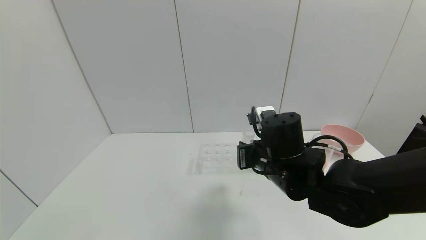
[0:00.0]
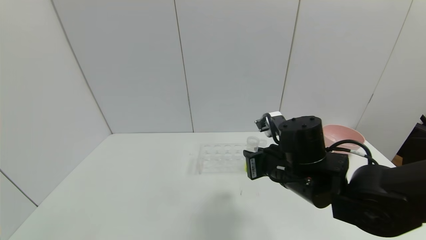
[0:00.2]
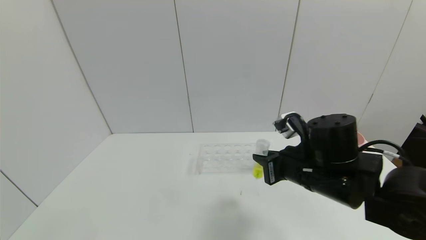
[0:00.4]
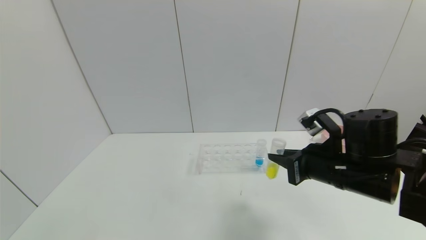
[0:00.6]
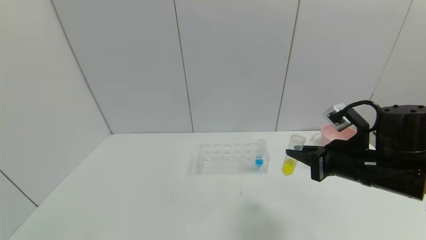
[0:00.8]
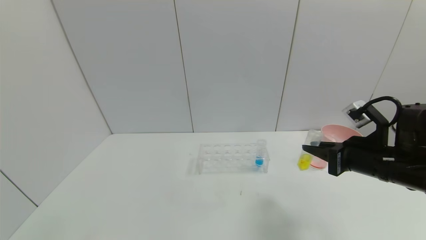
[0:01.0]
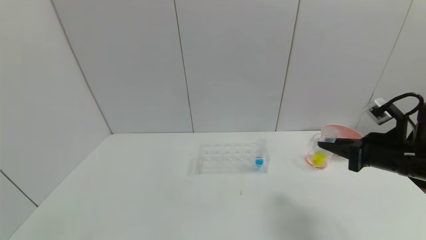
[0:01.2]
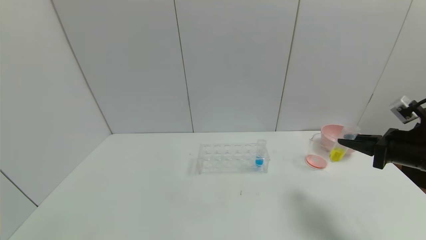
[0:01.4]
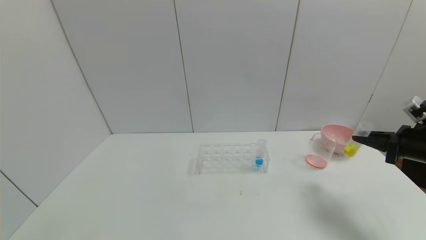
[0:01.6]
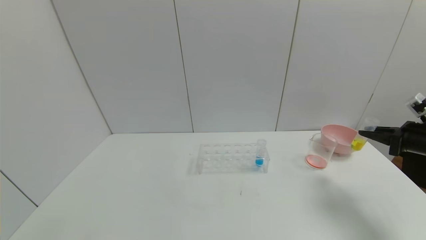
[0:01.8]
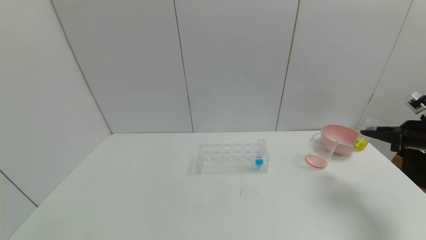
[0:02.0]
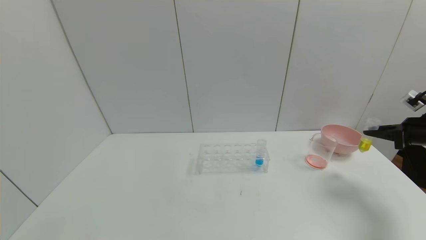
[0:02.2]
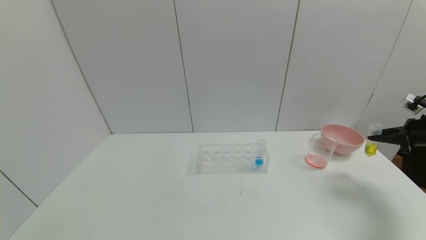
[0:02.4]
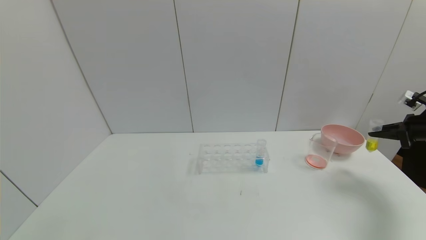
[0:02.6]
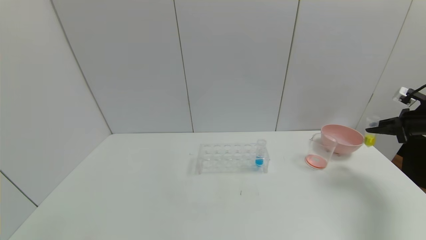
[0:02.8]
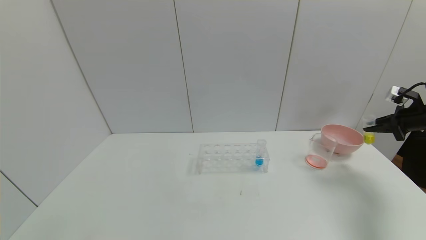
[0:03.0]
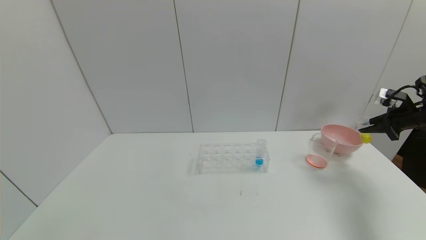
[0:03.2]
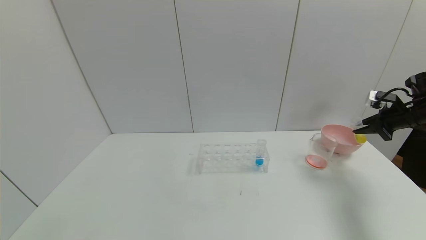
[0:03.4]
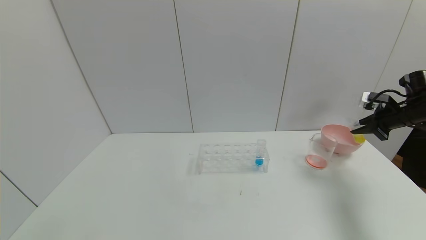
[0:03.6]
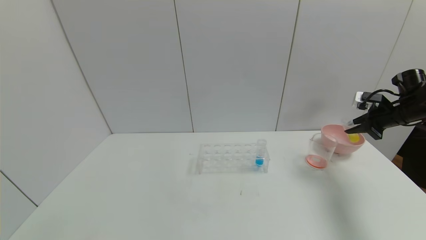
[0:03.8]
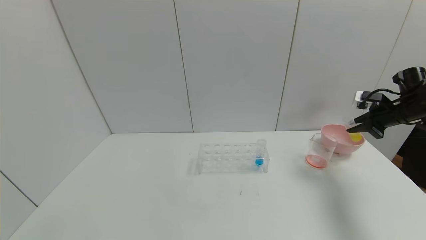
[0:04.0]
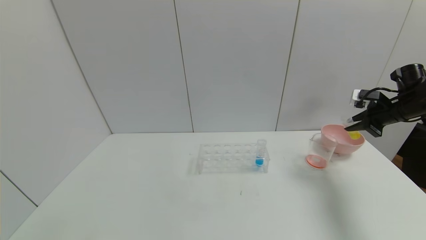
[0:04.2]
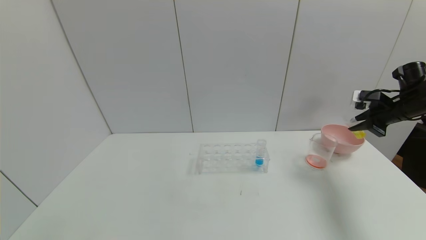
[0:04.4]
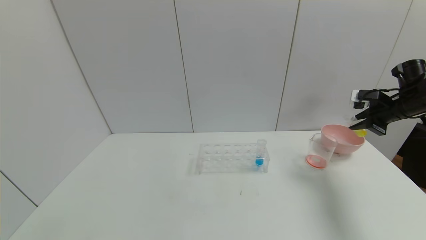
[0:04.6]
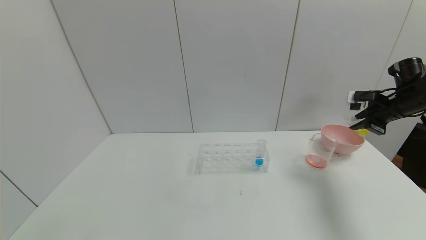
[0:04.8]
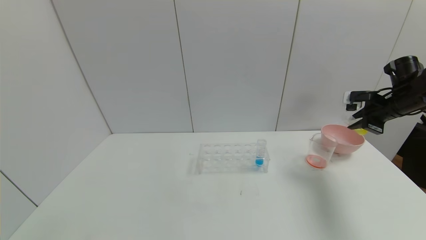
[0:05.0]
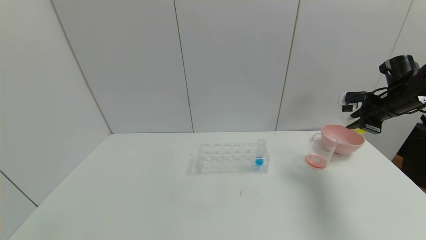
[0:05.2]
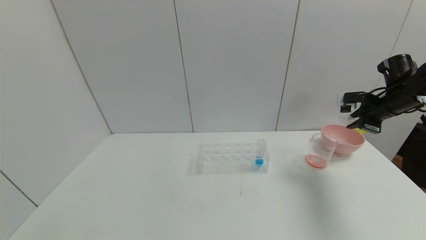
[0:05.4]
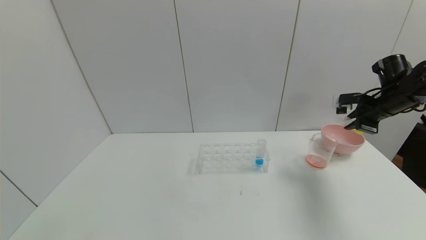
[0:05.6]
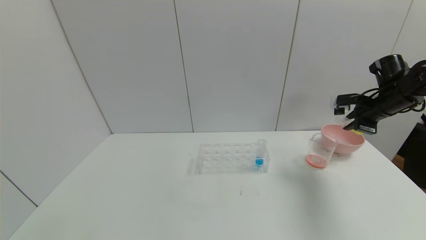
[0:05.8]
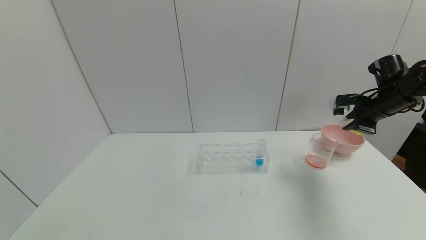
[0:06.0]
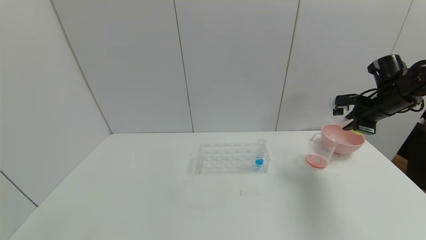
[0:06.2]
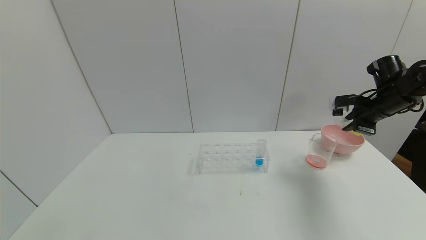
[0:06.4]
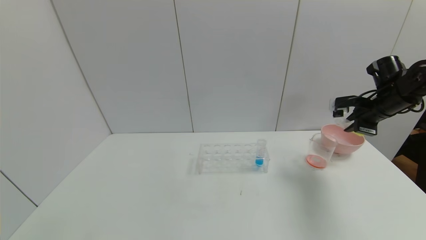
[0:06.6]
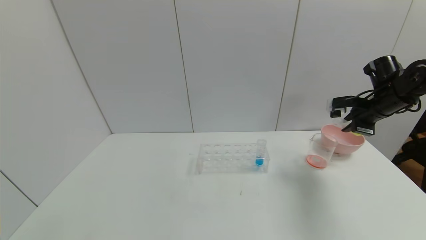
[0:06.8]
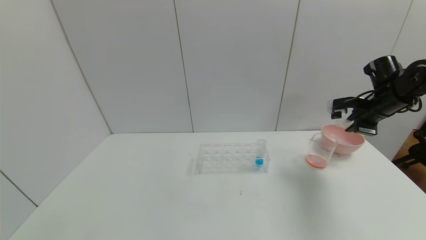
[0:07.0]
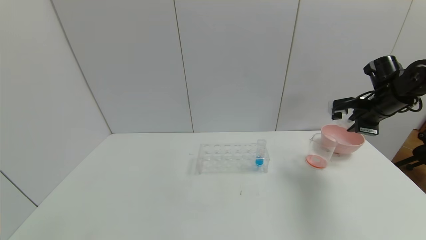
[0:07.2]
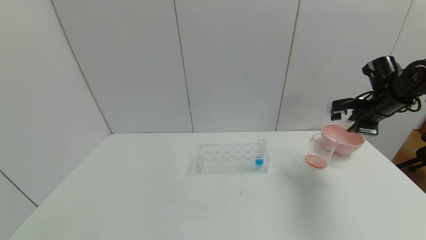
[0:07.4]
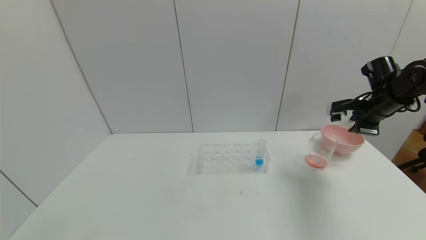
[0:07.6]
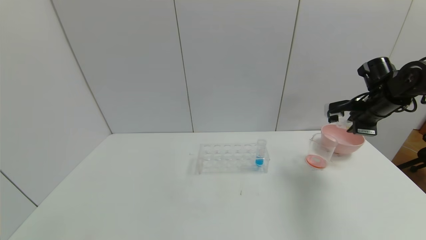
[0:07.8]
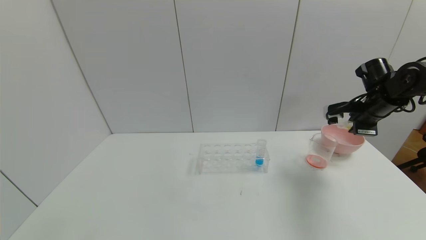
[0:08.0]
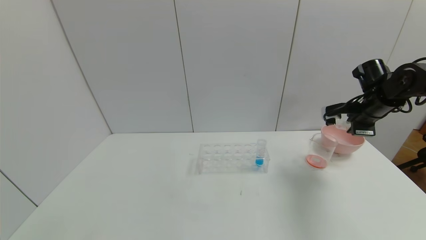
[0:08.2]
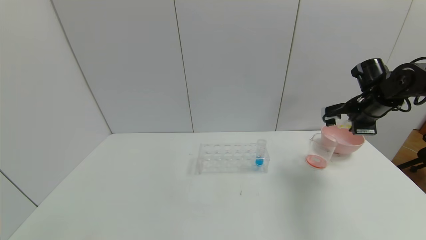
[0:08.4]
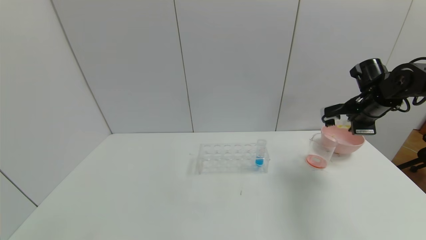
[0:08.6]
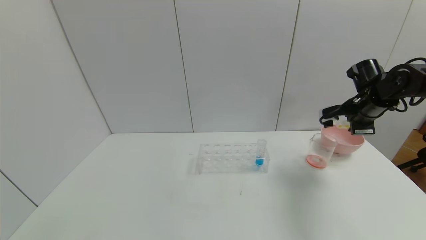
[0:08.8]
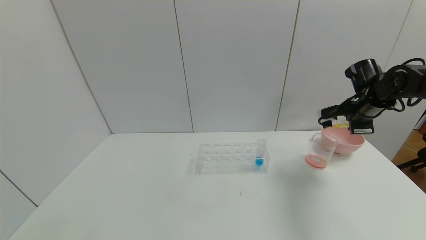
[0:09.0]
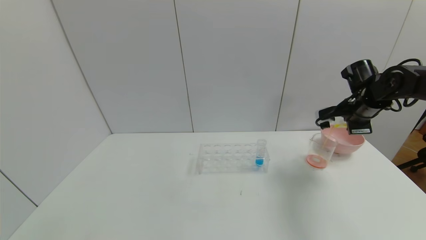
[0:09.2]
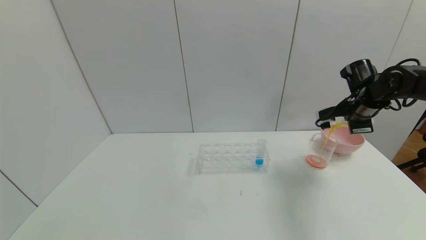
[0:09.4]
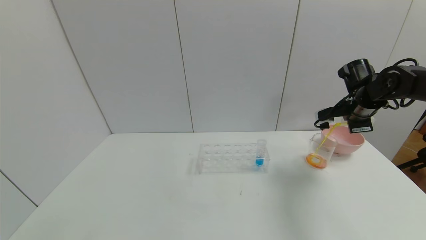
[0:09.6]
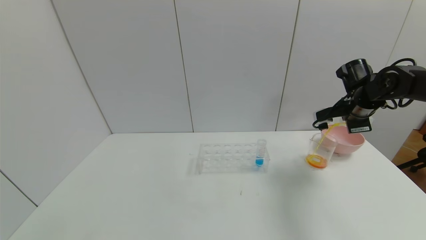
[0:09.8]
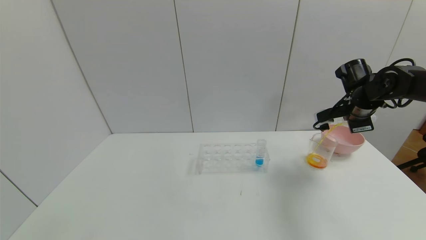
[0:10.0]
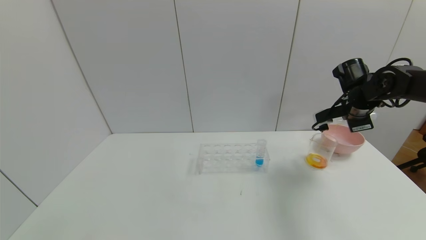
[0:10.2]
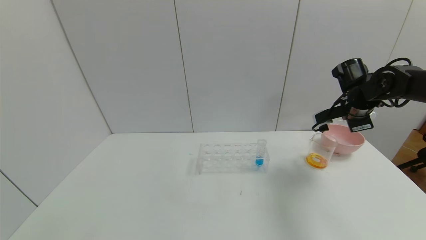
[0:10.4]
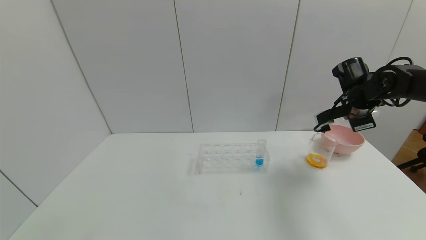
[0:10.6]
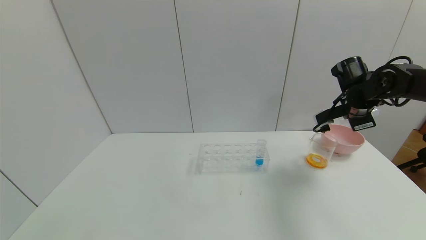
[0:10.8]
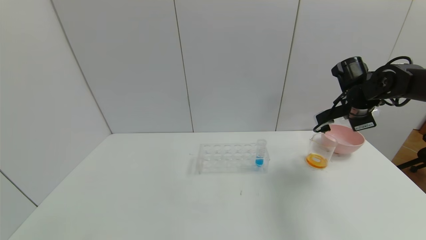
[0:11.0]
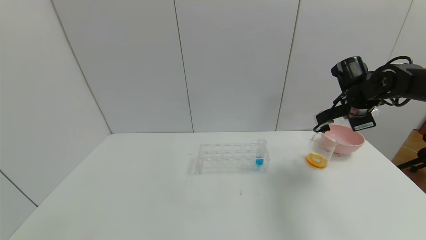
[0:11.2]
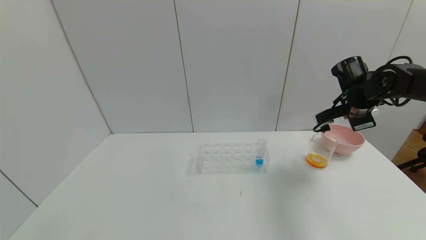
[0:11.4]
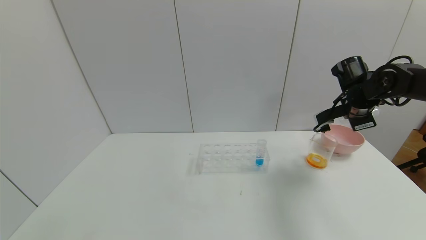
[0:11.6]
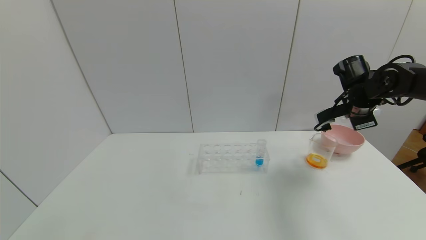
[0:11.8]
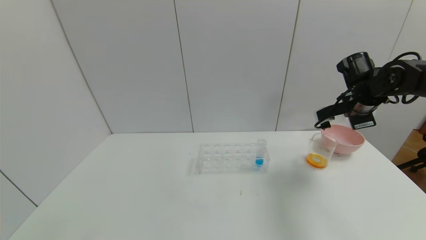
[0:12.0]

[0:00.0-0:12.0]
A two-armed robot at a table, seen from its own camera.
Task of the whole recording: pick up the test tube with yellow pigment and the test tube with red pigment by grippers and pour them into the beaker.
Step, 0:00.0 to 0:11.6: Pour the yellow reagent into the graduated cylinder with the right gripper.
0:00.0 to 0:01.6: The right gripper travels to the right by approximately 35 cm.
0:01.6 to 0:03.0: The right gripper goes approximately 15 cm forward and to the right.
0:03.0 to 0:04.4: The right gripper heads to the left, covering roughly 5 cm.
0:04.4 to 0:06.0: The right gripper moves to the left, about 5 cm.
0:06.0 to 0:07.6: The grippers stay close to where they were, moving slightly.
0:07.6 to 0:09.0: The grippers make only small movements.
0:09.0 to 0:12.0: The grippers stay close to where they were, moving slightly.

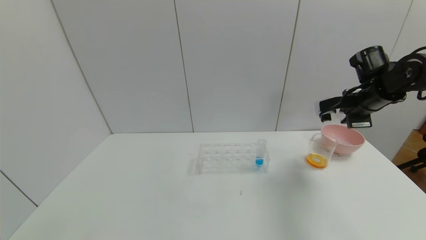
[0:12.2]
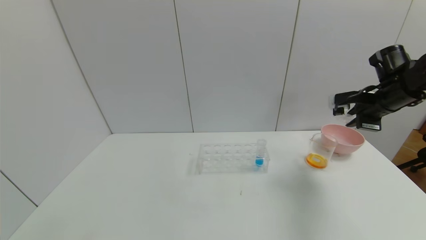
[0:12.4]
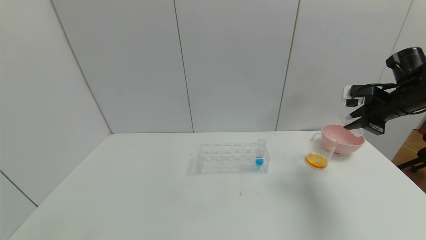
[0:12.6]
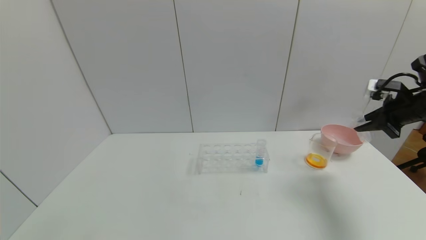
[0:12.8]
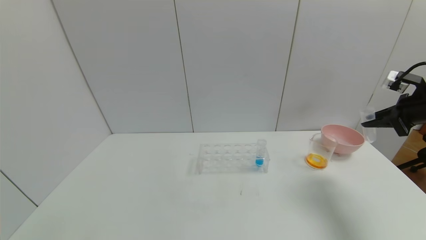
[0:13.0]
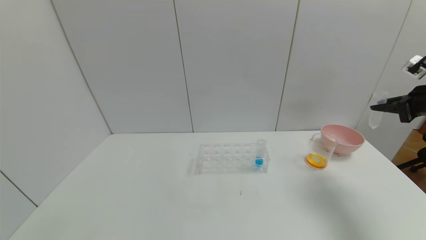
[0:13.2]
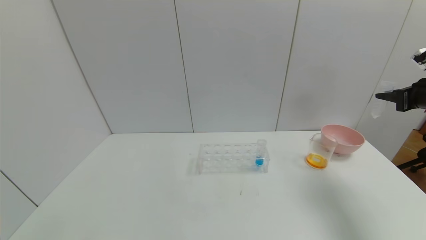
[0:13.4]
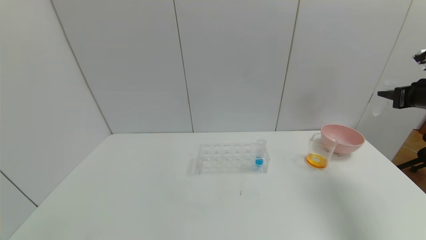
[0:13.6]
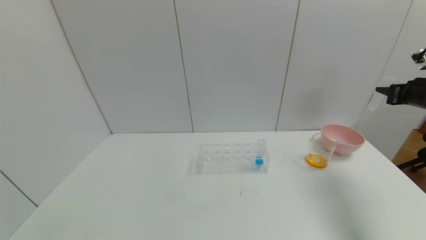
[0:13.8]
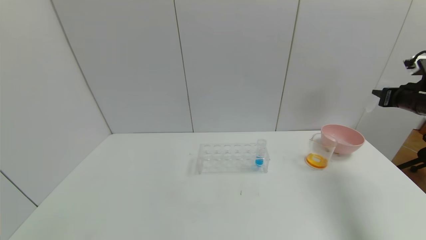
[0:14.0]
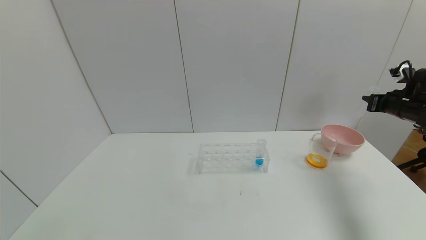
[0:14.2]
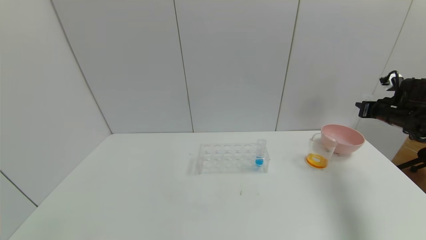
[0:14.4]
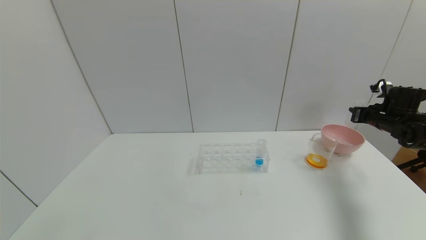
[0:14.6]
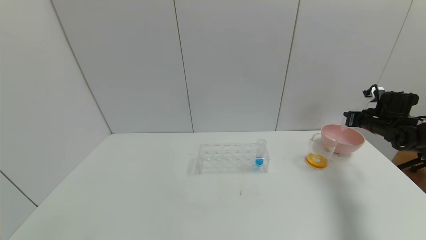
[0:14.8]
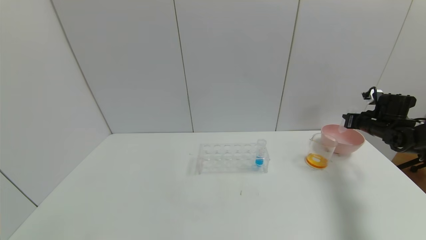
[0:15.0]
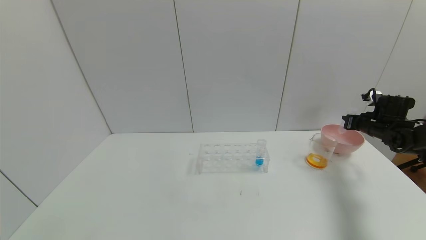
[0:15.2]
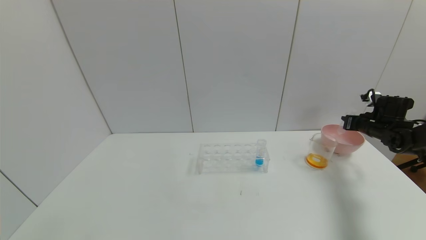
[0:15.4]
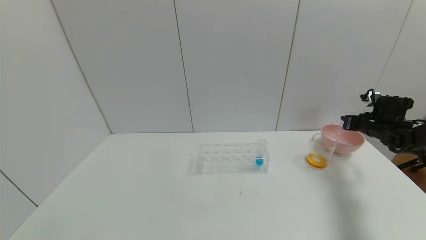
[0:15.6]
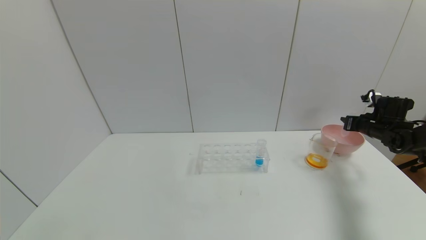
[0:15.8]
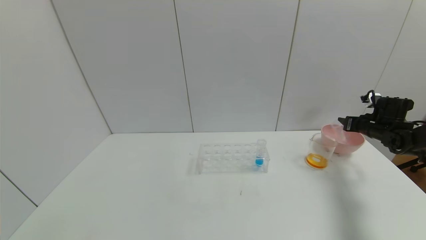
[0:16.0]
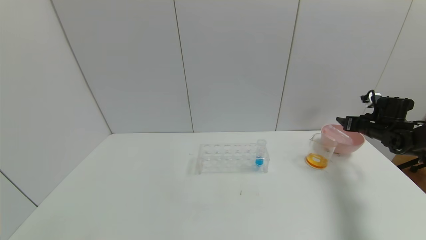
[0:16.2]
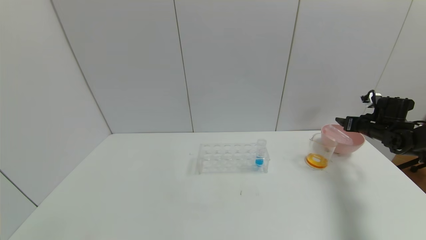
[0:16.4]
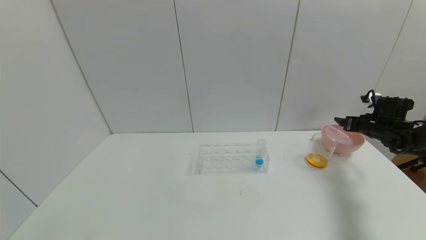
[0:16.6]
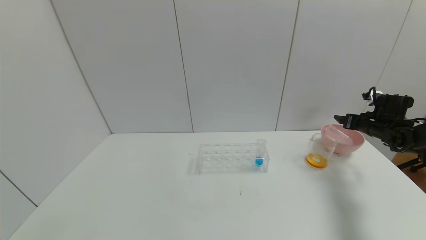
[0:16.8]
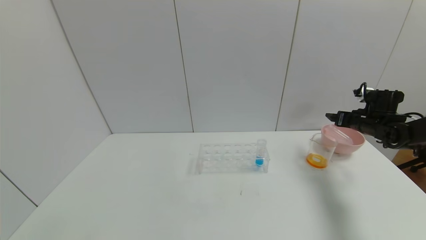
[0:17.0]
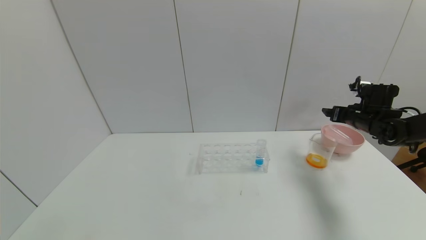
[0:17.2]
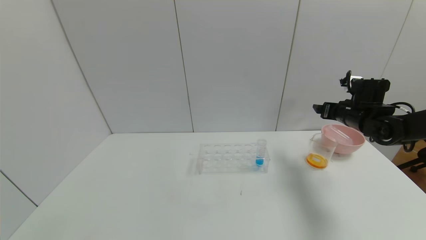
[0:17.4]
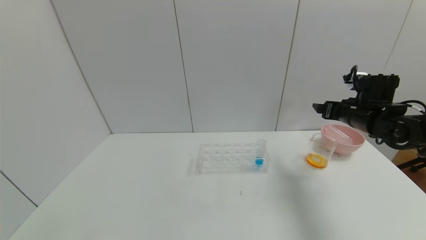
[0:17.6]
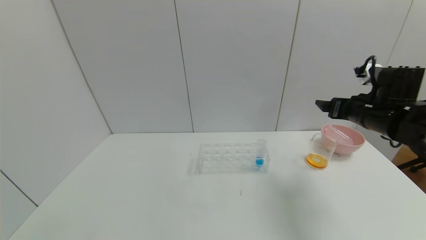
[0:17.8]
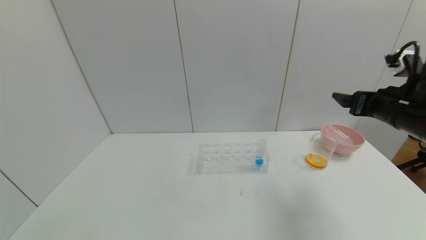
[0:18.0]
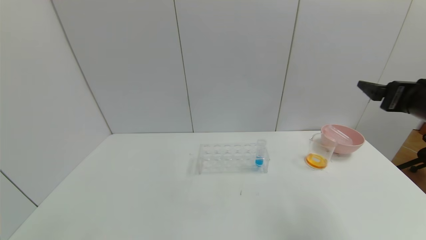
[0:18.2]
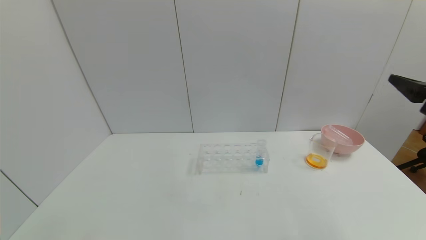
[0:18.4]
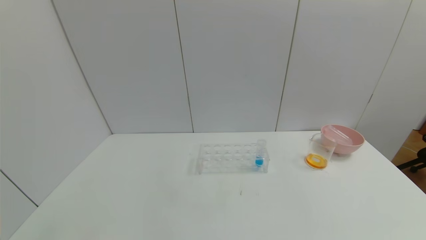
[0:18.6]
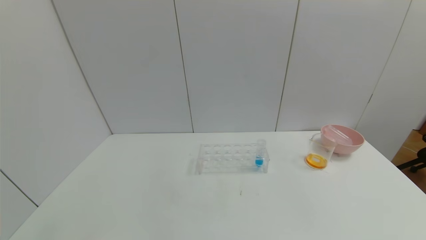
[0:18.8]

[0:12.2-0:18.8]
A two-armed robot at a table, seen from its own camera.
Task of the whole recording: pick up the test tube with yellow pigment and the test tube with red pigment by grippers and pour them into the beaker.
Step, 0:12.2 to 0:16.2: Place the test tube into the bowl with the right gripper.
0:12.2 to 0:13.8: The right gripper shifts approximately 15 cm to the right.
0:13.8 to 0:15.4: The right gripper heads downward and forward, covering about 15 cm.
0:15.4 to 0:17.2: The right gripper heads to the left, covering approximately 10 cm, and opens.
0:17.2 to 0:18.8: The right gripper moves backward, approximately 35 cm.
